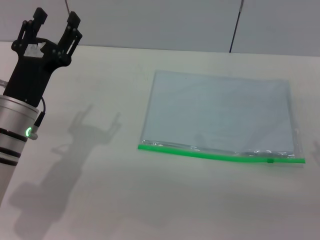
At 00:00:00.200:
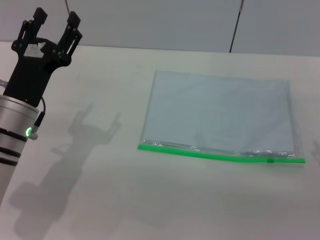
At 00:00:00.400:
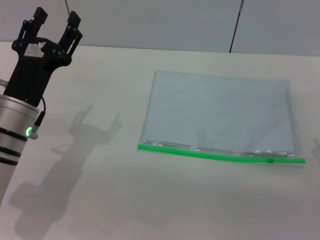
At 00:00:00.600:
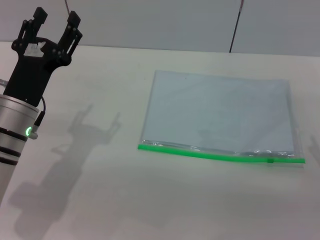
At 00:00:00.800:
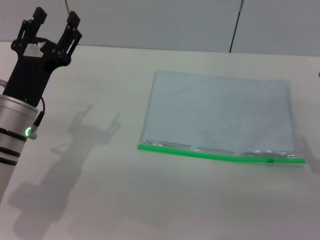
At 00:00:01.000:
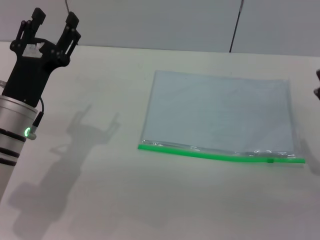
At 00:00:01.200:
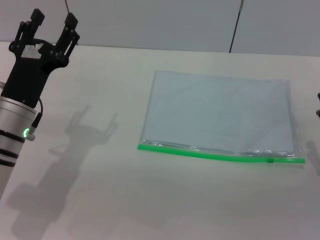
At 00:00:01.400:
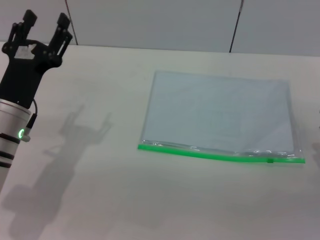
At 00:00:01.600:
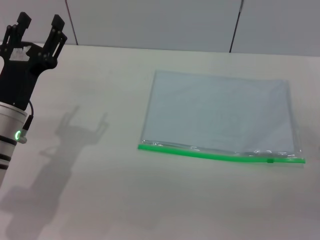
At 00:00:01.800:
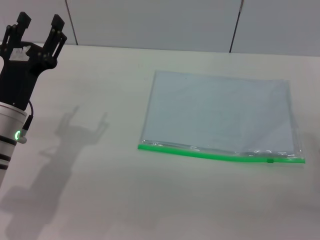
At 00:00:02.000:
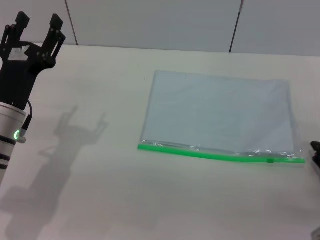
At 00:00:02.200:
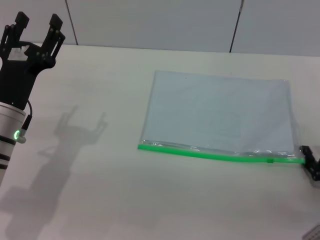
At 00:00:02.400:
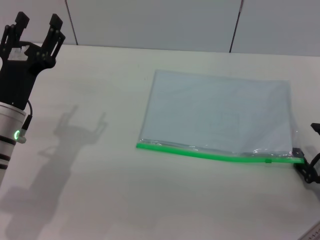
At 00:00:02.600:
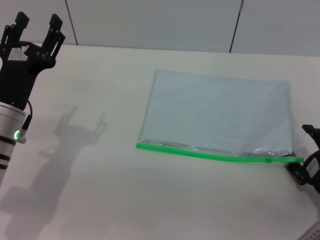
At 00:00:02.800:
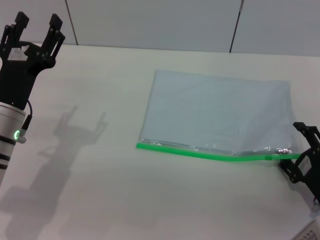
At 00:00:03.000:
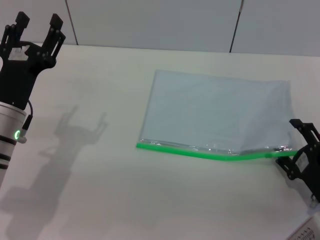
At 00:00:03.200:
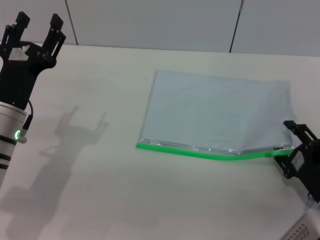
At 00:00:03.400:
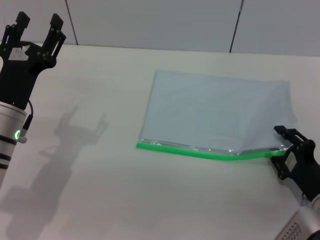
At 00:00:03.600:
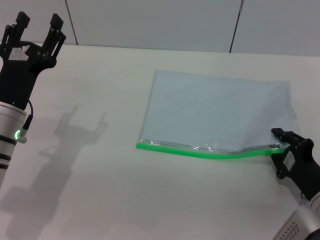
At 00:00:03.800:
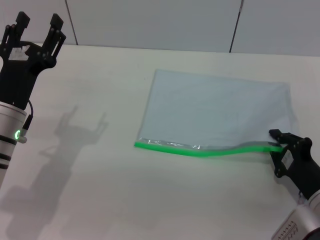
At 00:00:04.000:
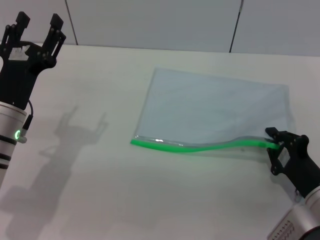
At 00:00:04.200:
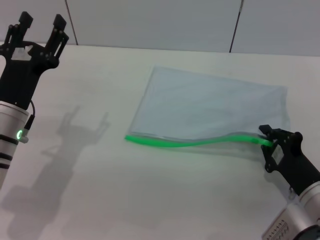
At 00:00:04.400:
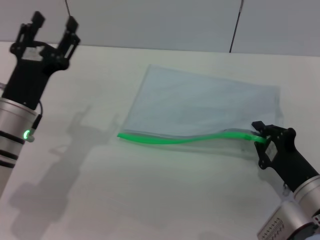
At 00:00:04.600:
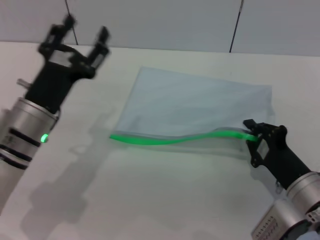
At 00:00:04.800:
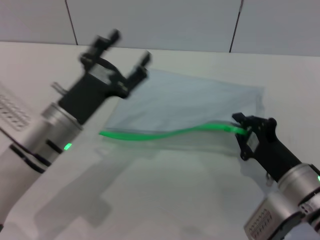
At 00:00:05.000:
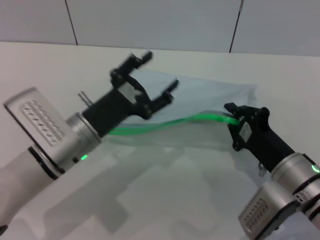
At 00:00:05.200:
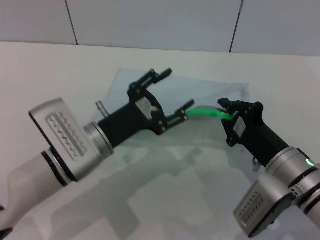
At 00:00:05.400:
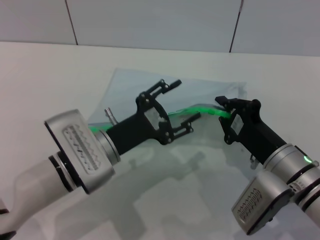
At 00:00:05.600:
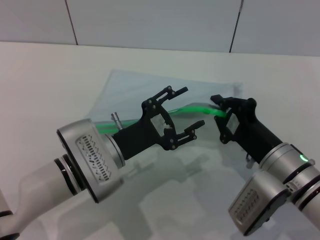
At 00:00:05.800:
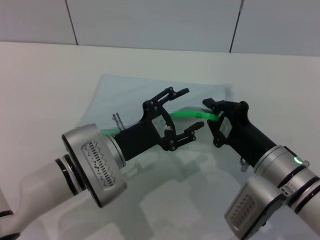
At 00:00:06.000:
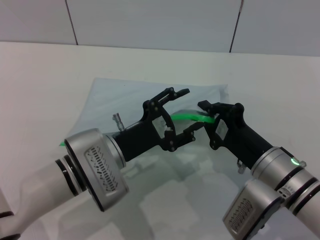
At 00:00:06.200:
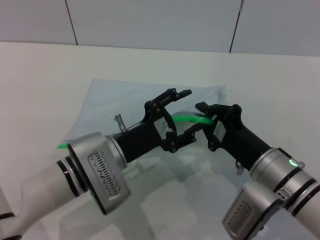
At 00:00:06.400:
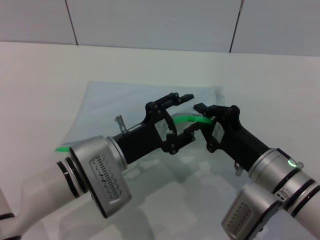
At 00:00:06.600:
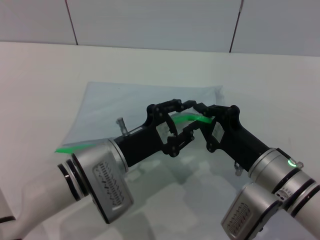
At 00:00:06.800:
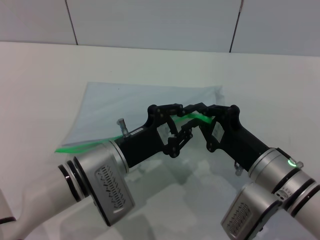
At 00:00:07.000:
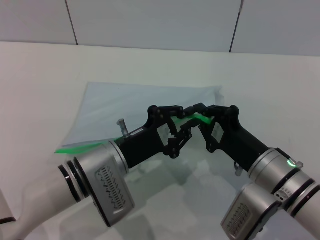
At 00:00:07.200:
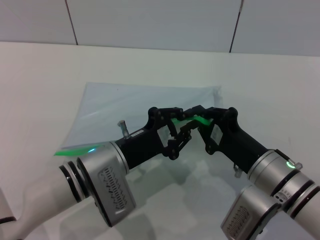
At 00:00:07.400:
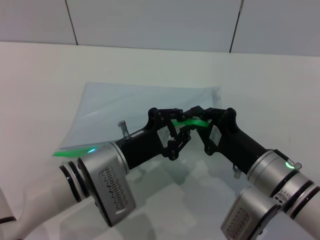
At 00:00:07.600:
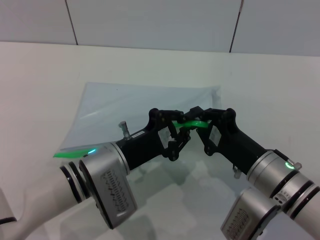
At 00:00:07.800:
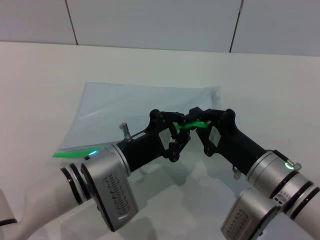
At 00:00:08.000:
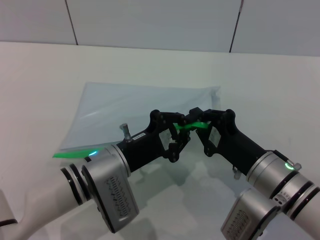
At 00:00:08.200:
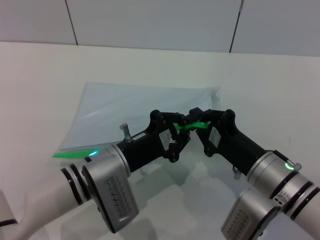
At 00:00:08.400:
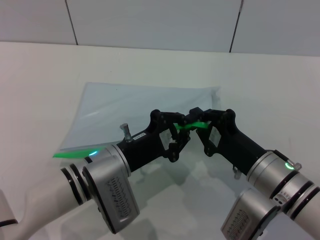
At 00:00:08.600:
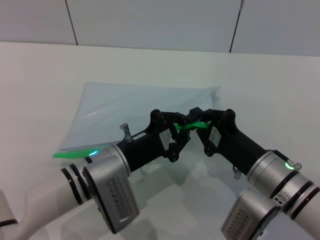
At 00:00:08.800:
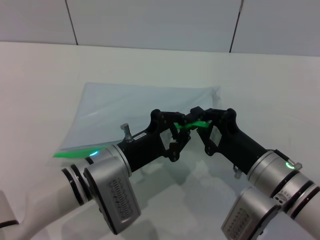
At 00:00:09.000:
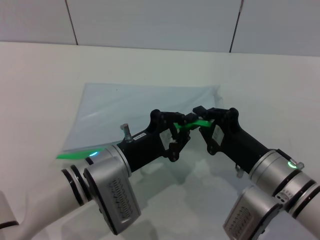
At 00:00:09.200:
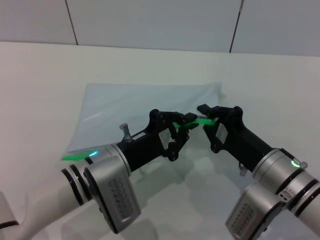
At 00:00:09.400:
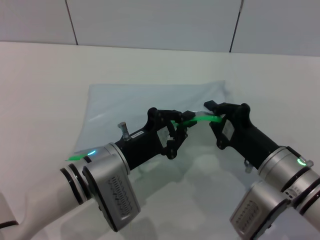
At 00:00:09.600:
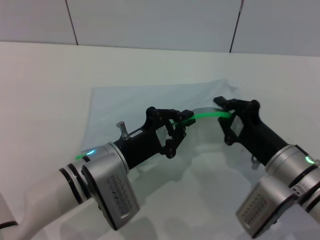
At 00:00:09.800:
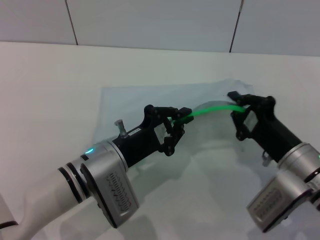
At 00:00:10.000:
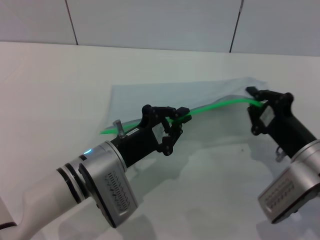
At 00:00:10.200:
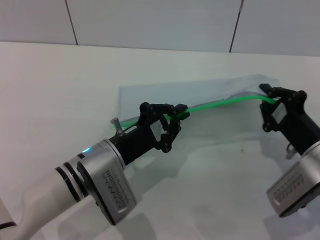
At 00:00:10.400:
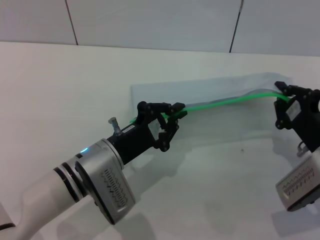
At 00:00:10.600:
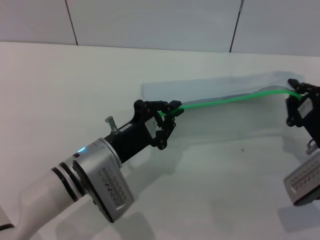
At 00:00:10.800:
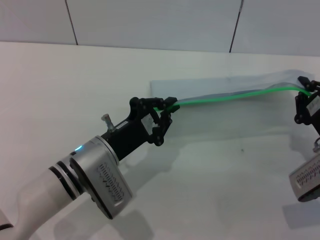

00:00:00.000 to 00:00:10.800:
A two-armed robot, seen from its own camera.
Step, 00:00:00.000 to 00:00:05.000: Pick up the transparent plastic bag with the right gripper.
00:00:01.600 to 00:00:03.000: The right gripper is displaced to the left by about 5 cm.
00:00:03.000 to 00:00:04.600: The right gripper shifts roughly 5 cm to the left, and closes its fingers.
00:00:04.600 to 00:00:06.200: The left gripper moves to the right, roughly 10 cm. Meanwhile the right gripper is displaced to the left by roughly 5 cm.
00:00:06.200 to 00:00:07.800: The left gripper closes.
00:00:07.800 to 00:00:09.200: Both grippers stay put.
00:00:09.200 to 00:00:10.800: The right gripper goes approximately 10 cm to the right.

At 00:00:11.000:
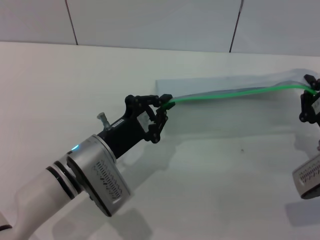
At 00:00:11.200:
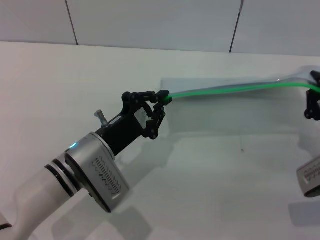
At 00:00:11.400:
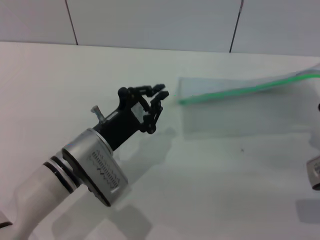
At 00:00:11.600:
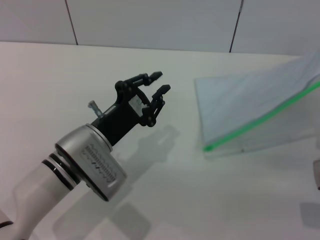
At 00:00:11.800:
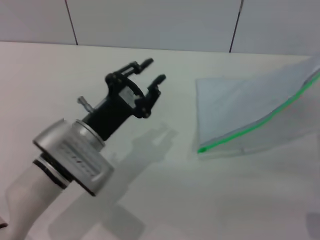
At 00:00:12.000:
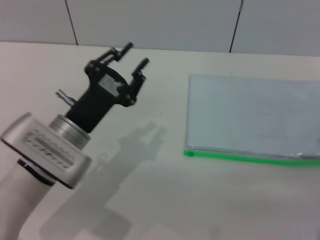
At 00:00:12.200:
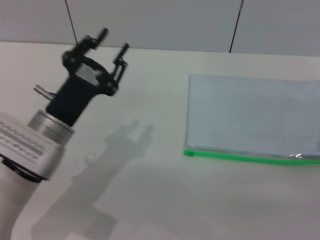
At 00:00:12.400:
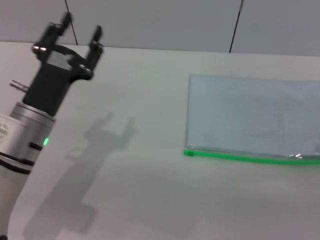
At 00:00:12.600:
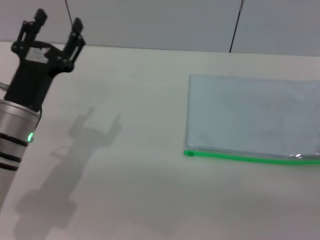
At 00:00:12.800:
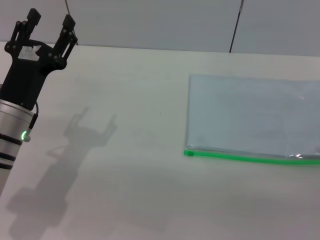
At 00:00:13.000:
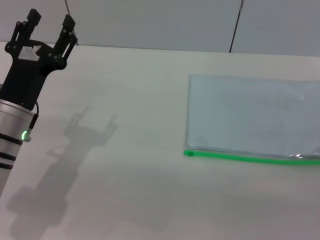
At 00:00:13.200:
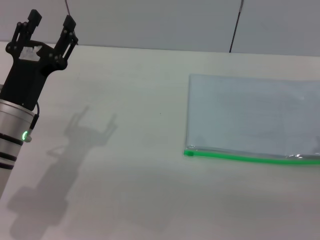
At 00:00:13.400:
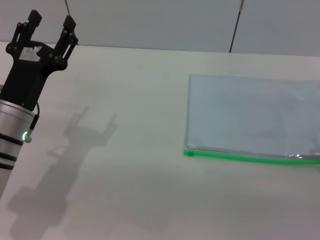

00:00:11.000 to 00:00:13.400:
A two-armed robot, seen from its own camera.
Step, 00:00:11.600 to 00:00:12.200: Place the transparent plastic bag.
00:00:11.000 to 00:00:12.200: The left gripper moves about 5 cm, and opens up. The right gripper ends up about 5 cm from where it was, and opens up.
00:00:12.200 to 00:00:13.400: The left gripper opens up.
